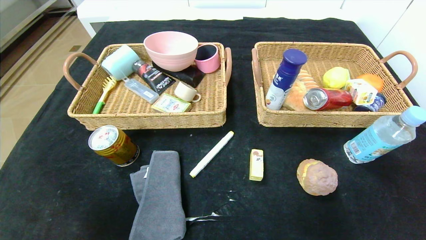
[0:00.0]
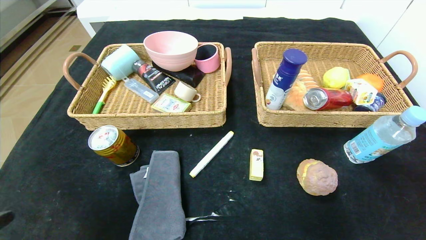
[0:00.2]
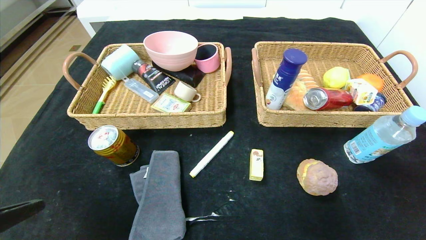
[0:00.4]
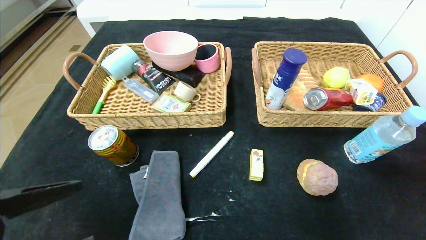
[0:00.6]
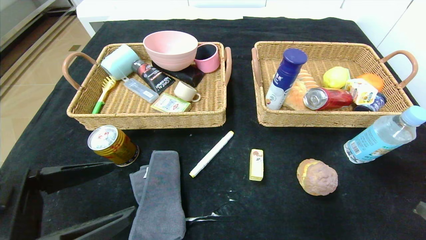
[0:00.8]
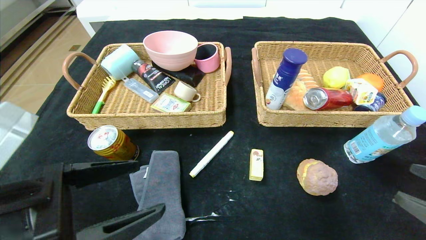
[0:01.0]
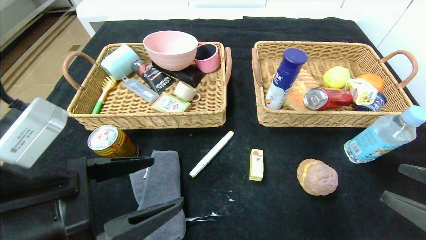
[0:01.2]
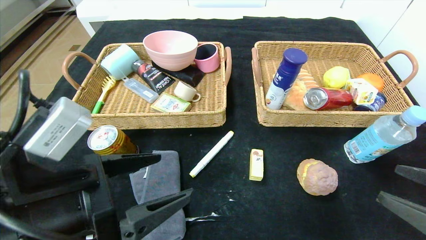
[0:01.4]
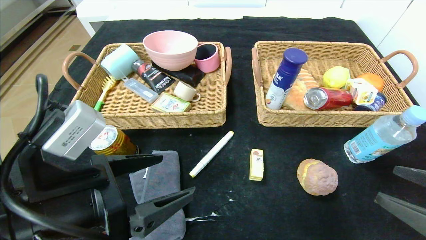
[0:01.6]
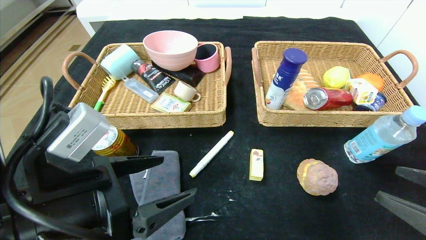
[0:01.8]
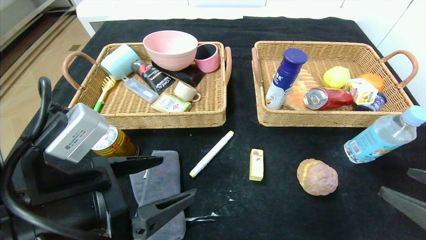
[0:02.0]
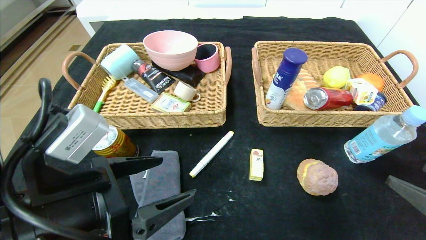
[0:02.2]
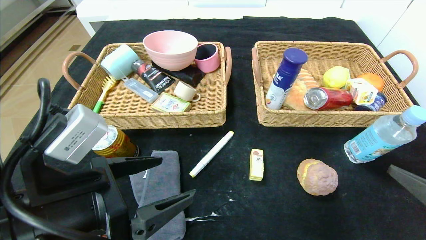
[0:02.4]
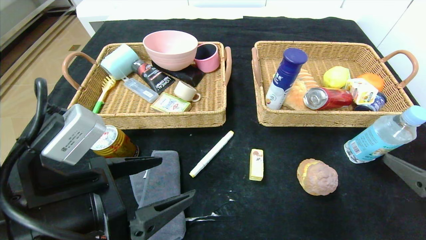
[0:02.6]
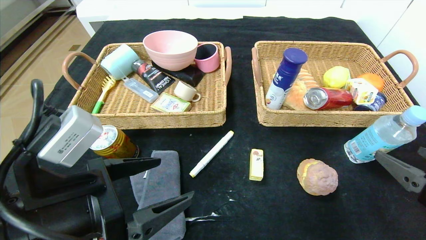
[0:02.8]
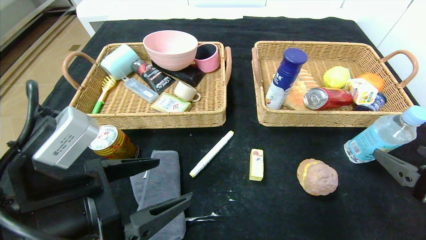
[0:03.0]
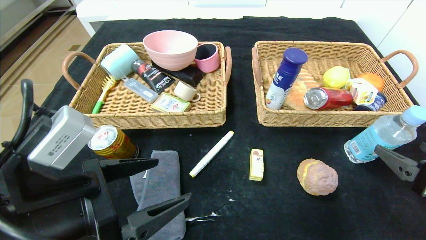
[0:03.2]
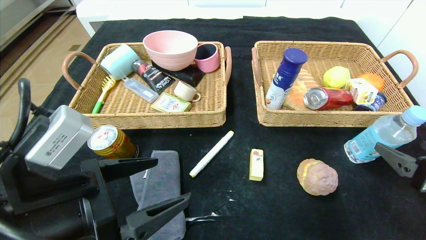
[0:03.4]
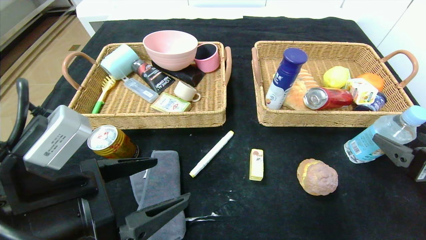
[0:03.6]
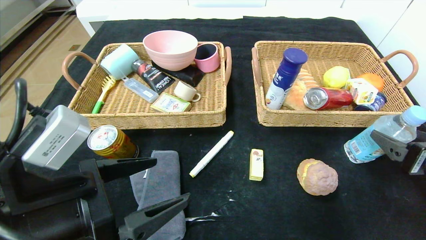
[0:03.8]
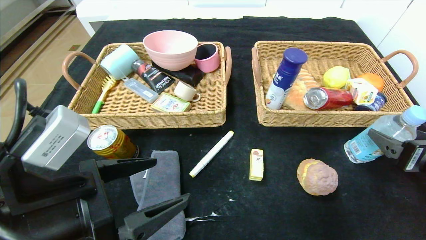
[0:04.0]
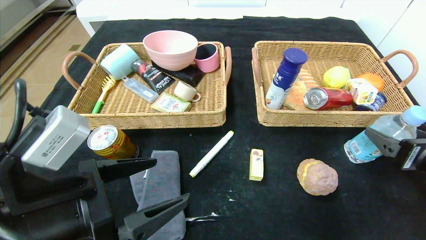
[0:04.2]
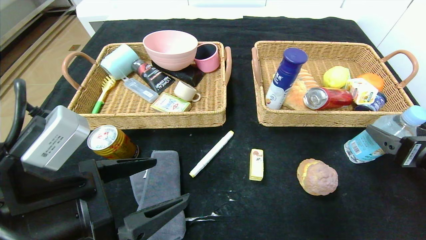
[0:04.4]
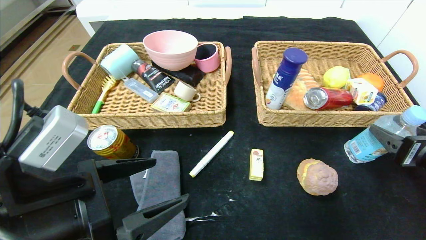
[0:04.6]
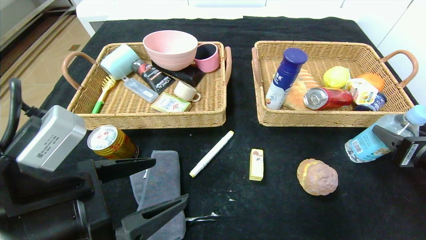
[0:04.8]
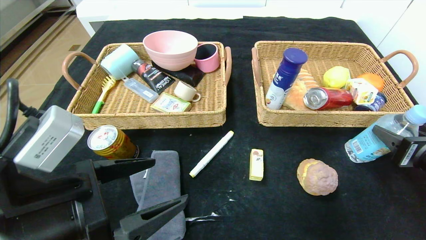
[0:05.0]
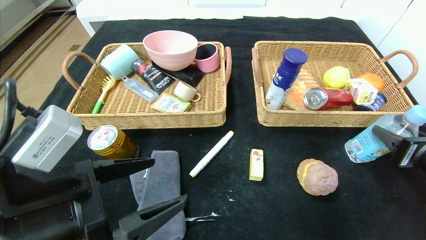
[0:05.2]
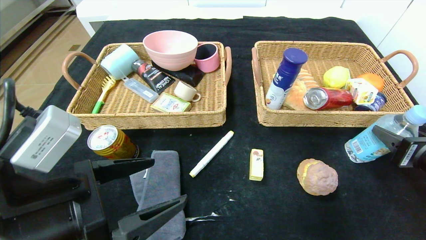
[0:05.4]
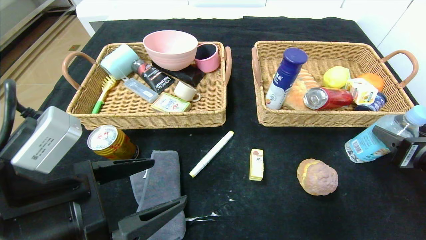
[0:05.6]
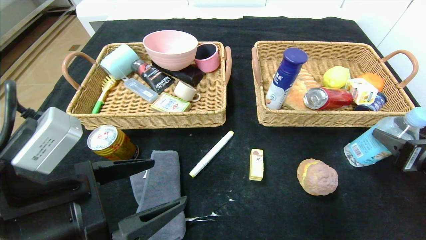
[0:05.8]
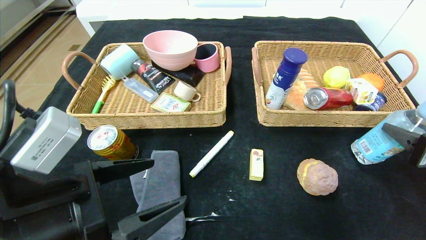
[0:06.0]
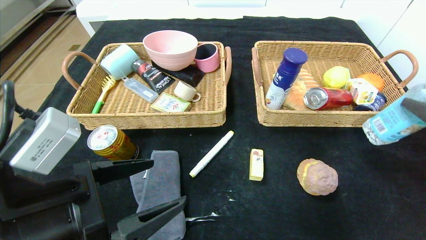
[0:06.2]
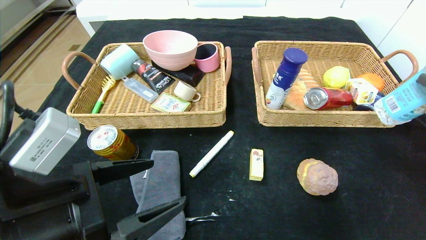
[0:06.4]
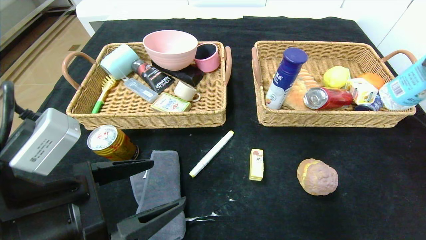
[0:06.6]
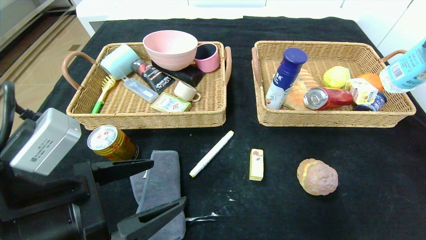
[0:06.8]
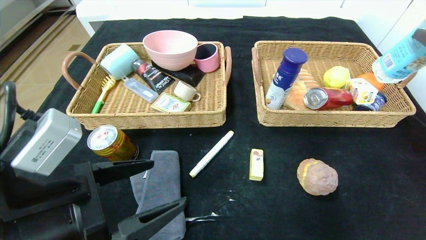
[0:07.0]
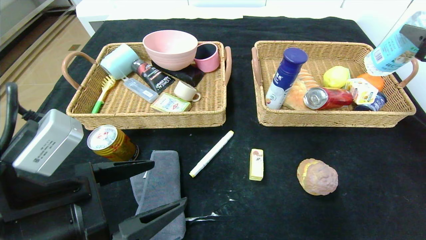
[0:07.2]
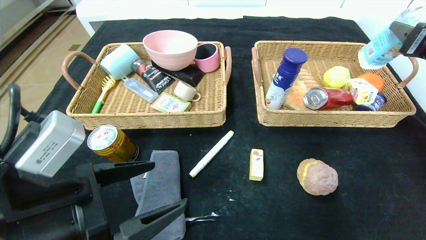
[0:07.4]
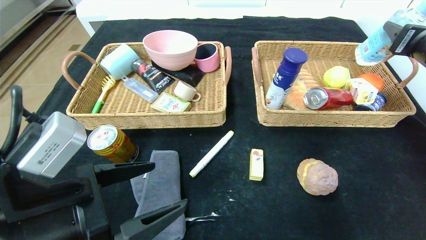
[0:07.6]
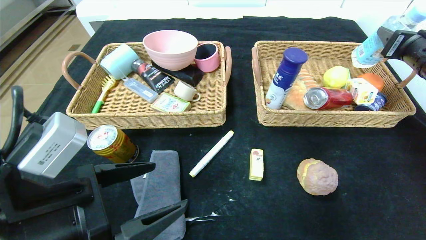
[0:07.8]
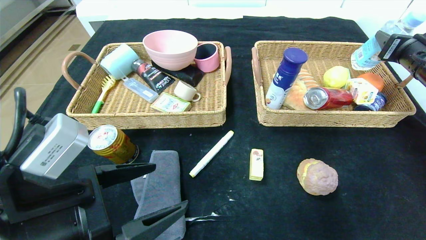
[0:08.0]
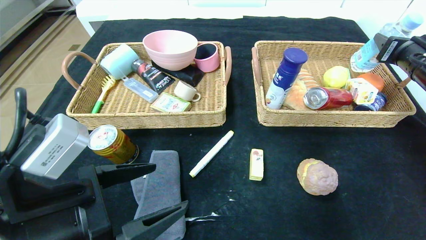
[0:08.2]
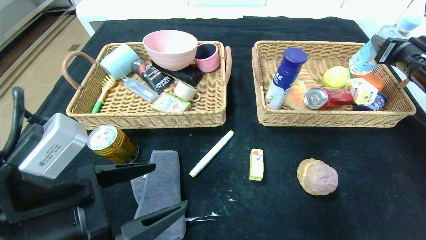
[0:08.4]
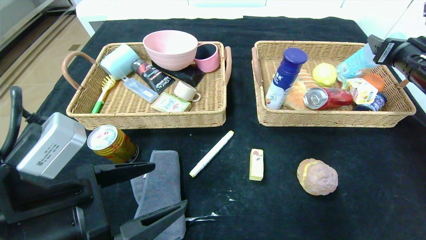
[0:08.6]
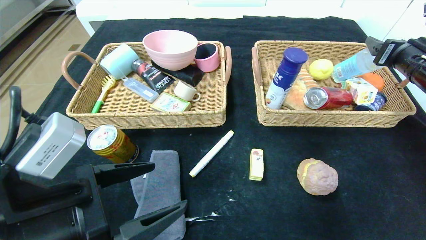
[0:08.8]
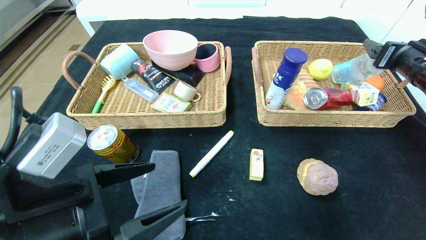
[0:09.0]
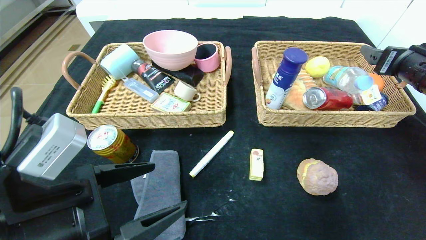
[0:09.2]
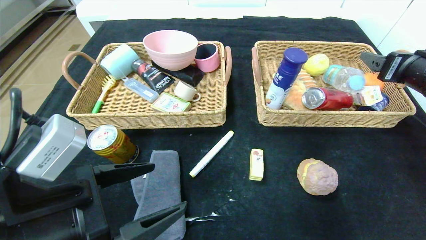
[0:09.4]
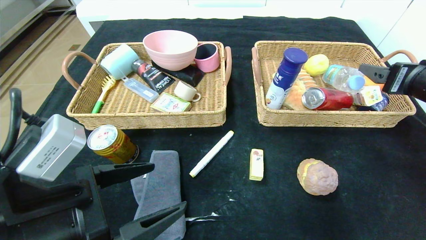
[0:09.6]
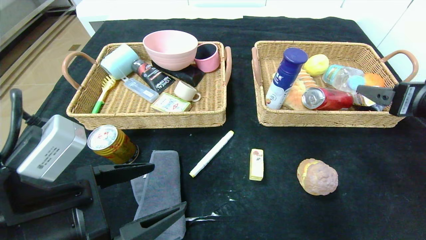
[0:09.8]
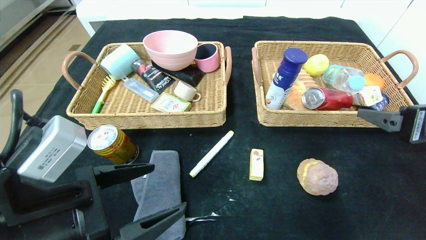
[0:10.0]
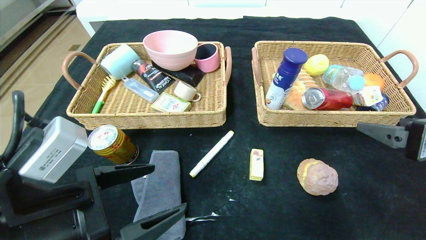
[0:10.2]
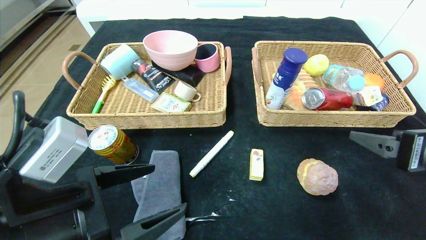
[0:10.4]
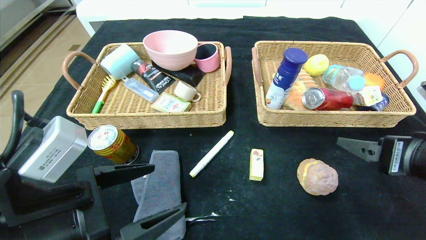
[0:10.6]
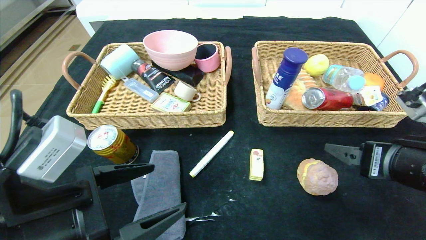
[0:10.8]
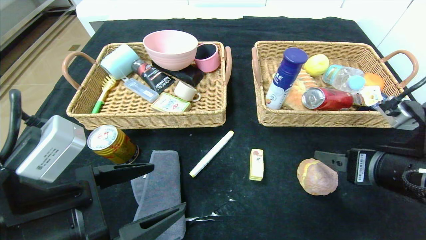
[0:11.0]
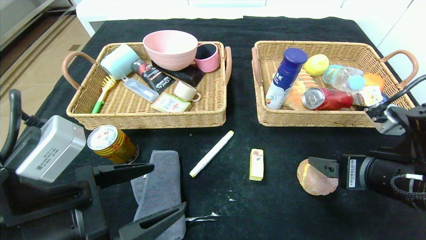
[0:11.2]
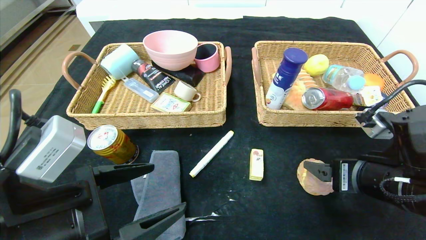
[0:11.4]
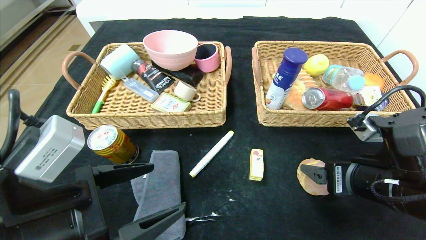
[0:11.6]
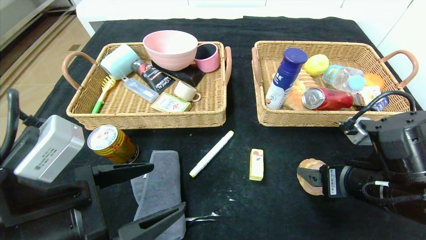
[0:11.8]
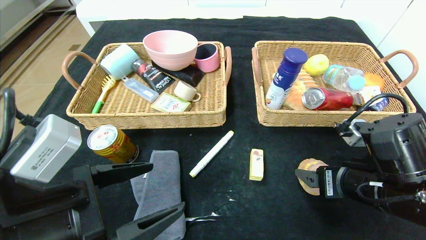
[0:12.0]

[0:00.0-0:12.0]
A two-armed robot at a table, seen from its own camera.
Step, 0:00.0 to 0:08.8: Grasp the soda water and put it in the right basket.
0:00.0 to 0:01.6: The right gripper moves forward, approximately 10 cm, while the left gripper heads forward and to the right, covering about 20 cm.
0:03.0 to 0:04.4: The right gripper travels forward by some 5 cm.
0:04.4 to 0:06.0: The right gripper closes up.
0:06.0 to 0:07.6: The right gripper shifts some 20 cm forward and upward.
0:07.6 to 0:09.0: The right gripper opens its fingers.
0:09.0 to 0:10.4: The right gripper shifts some 20 cm backward and to the left.
0:10.4 to 0:12.0: The right gripper is displaced downward and to the left by roughly 10 cm.

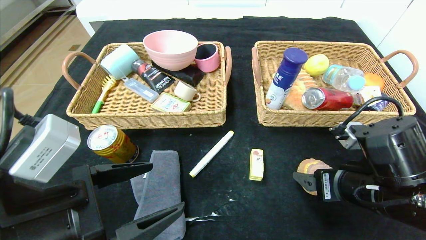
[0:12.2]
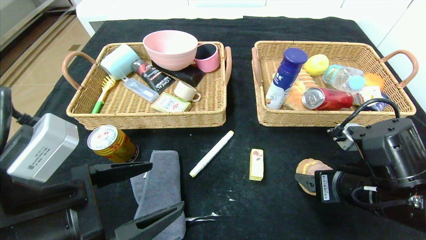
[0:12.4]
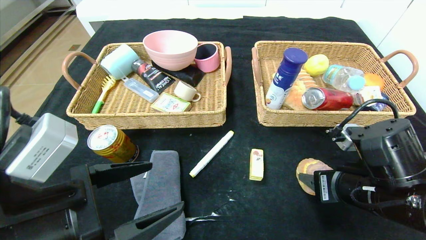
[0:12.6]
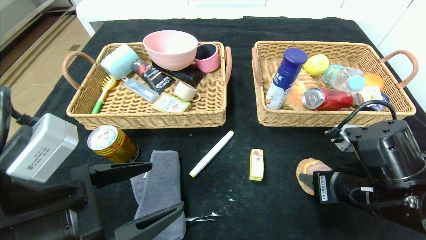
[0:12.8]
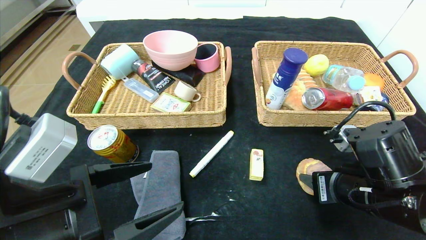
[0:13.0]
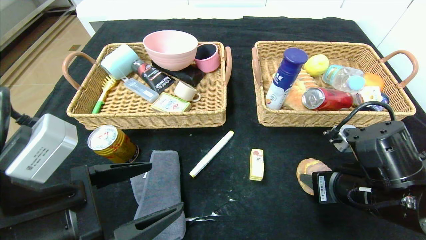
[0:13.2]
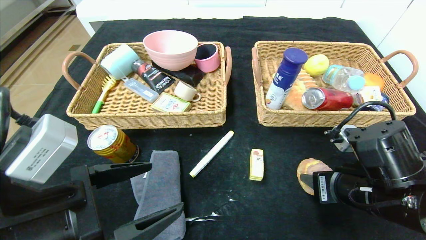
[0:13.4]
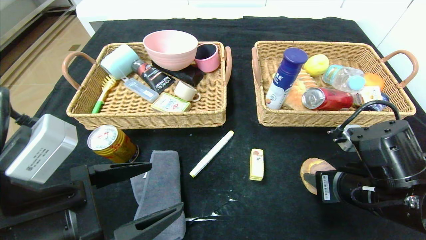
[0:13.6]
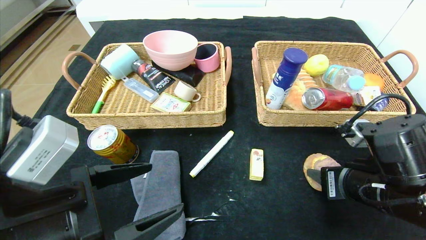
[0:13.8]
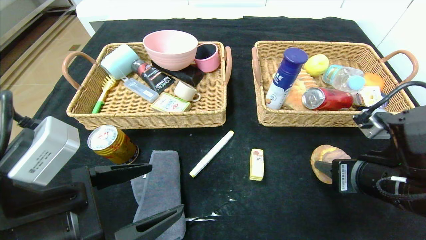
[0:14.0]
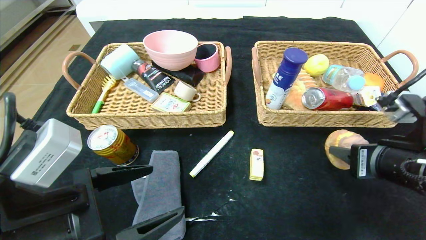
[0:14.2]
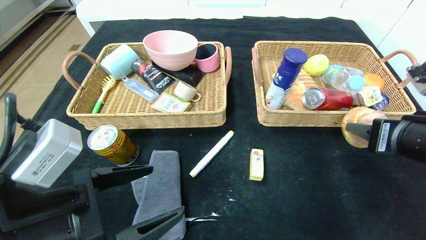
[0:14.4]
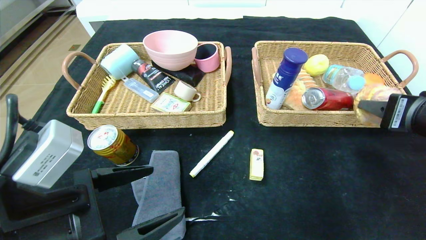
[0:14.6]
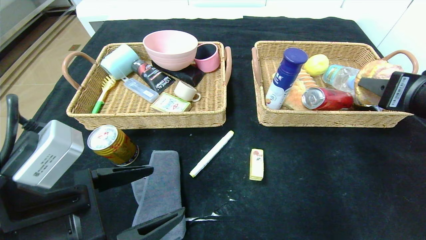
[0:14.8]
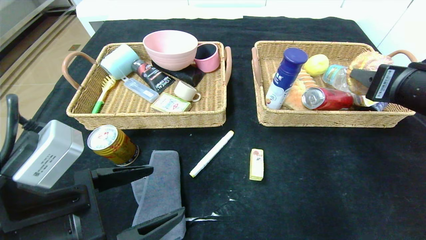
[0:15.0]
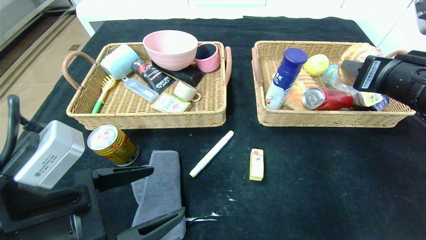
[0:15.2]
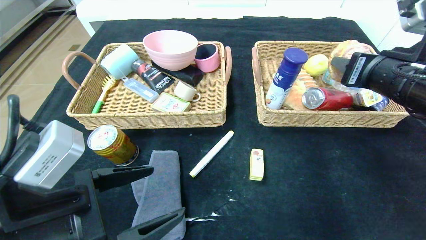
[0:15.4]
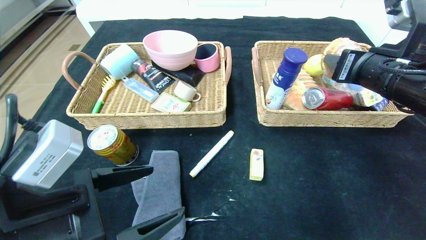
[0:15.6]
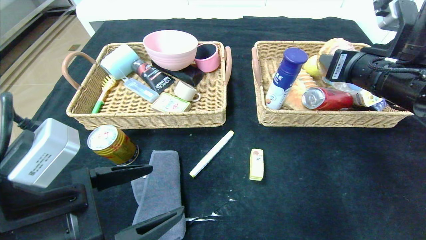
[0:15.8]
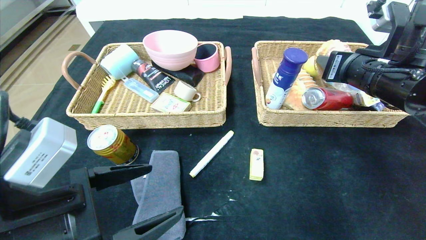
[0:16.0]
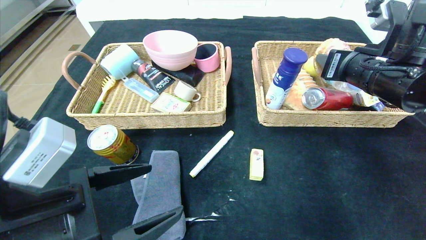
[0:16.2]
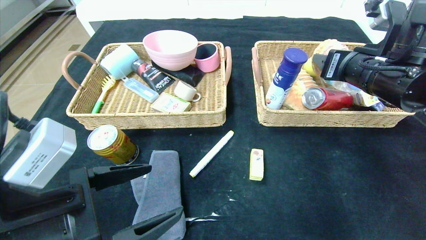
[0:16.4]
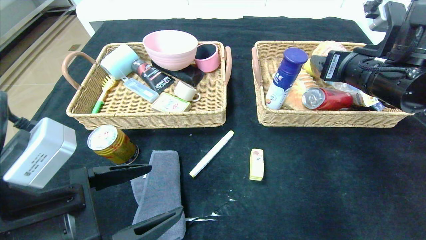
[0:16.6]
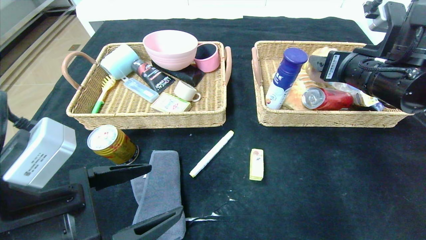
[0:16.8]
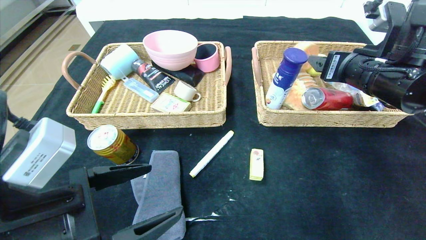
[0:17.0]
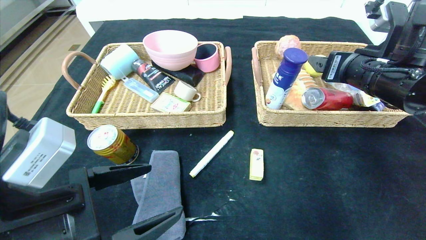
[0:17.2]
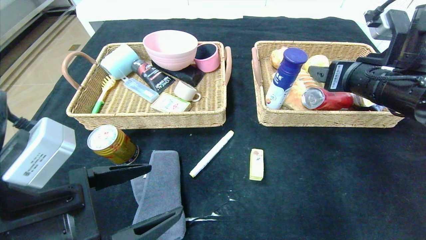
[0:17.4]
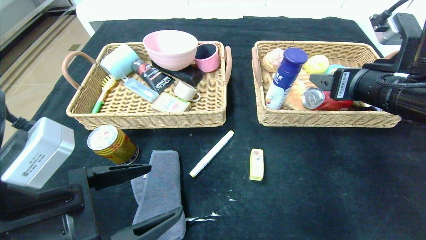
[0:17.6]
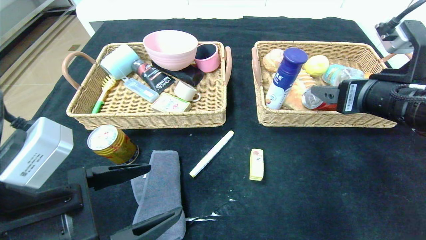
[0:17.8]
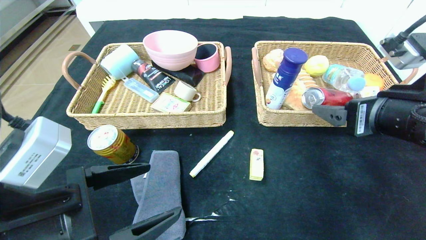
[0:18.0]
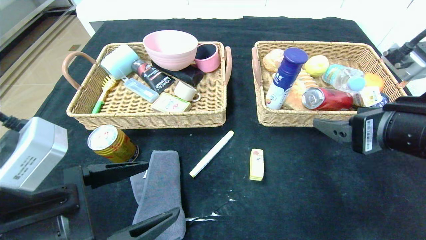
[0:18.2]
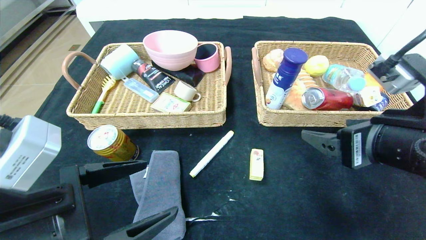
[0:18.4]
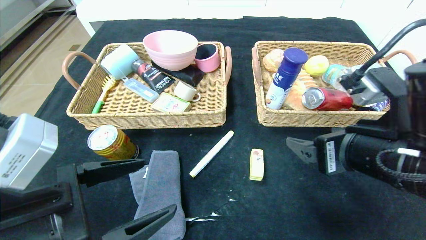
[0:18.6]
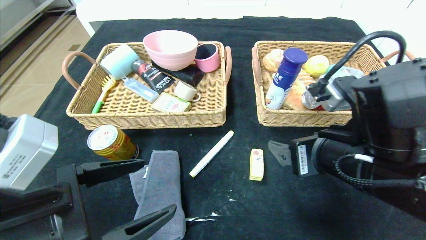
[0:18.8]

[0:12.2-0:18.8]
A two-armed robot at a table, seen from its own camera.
Step, 0:12.2 to 0:17.0: Grasp the round bread and put it in the right basket.
0:12.2 to 0:13.8: The right gripper closes.
0:13.8 to 0:15.4: The right gripper shifts about 15 cm upward and forward.
0:15.4 to 0:17.2: The right gripper opens up.
0:17.2 to 0:18.8: The right gripper is displaced backward, to the left and downward by approximately 15 cm.
